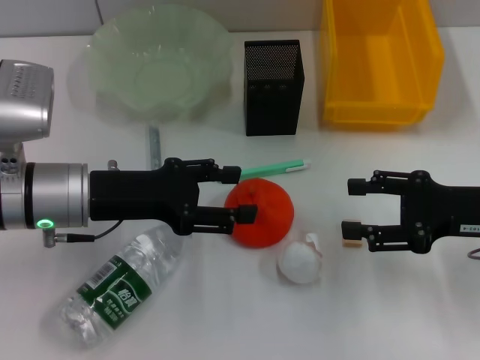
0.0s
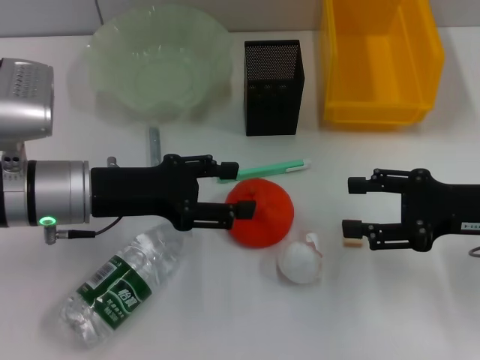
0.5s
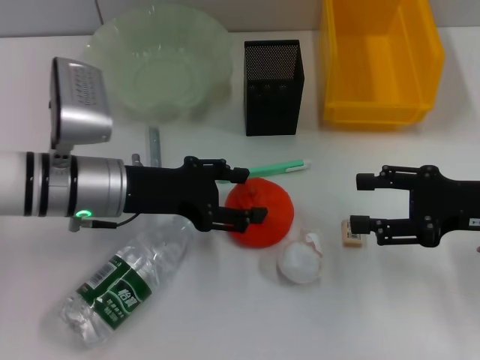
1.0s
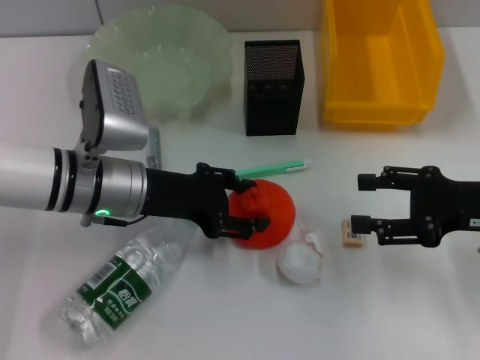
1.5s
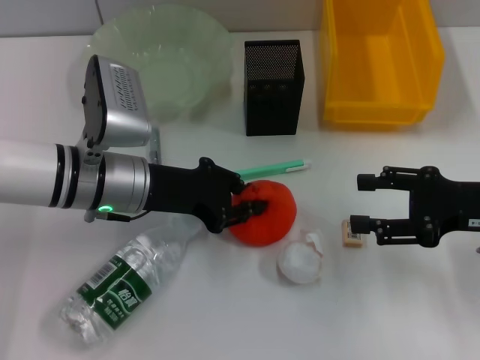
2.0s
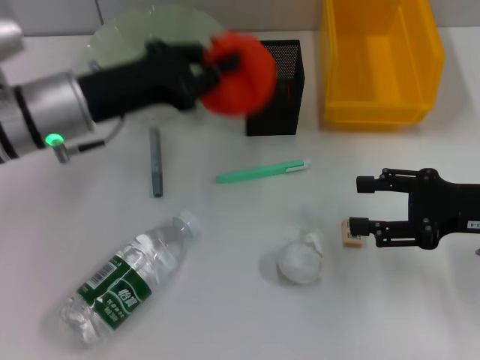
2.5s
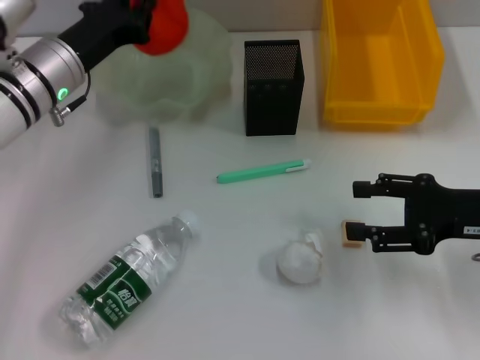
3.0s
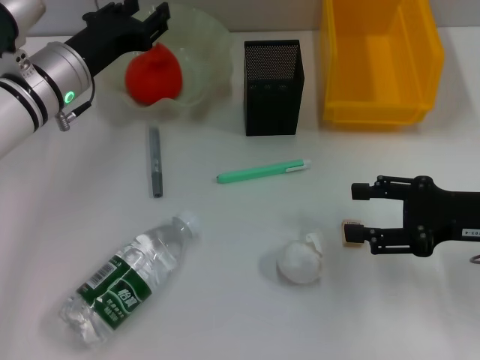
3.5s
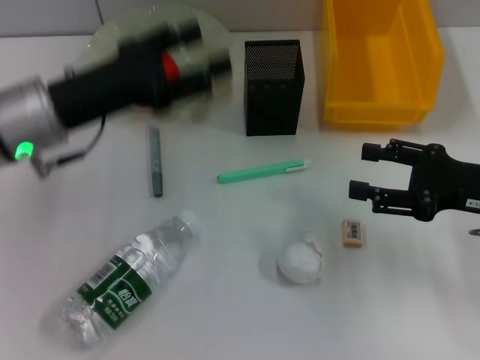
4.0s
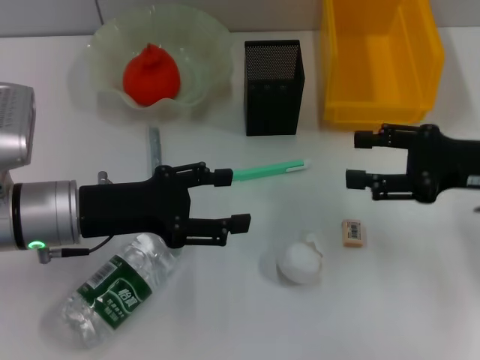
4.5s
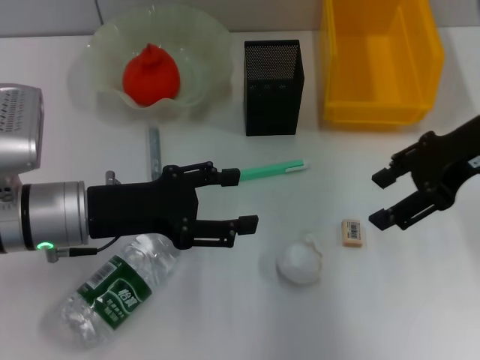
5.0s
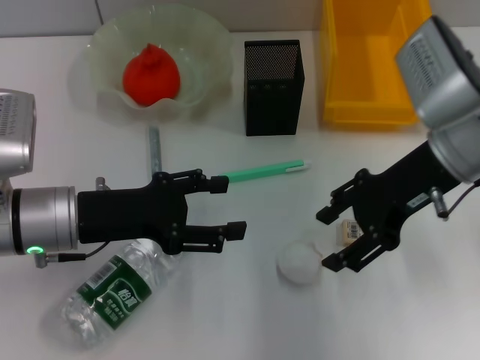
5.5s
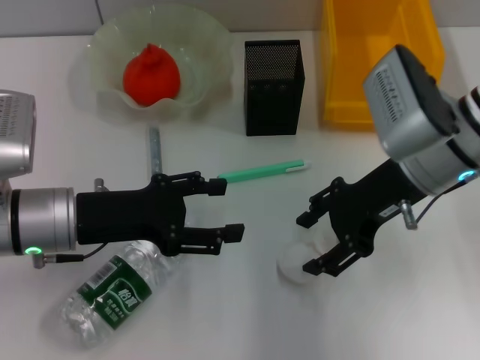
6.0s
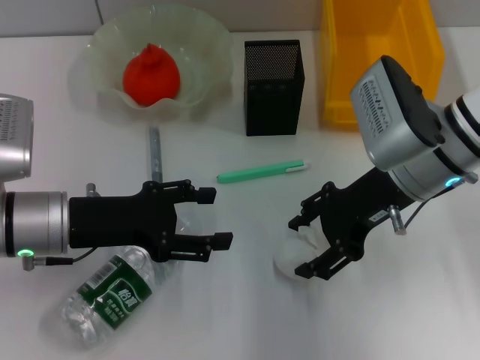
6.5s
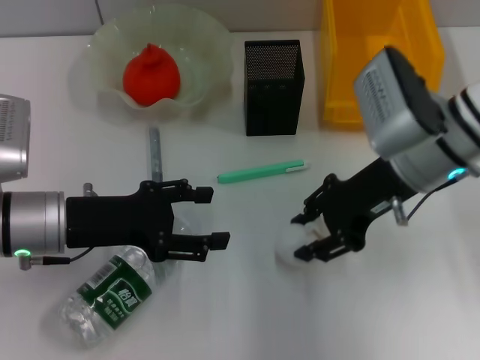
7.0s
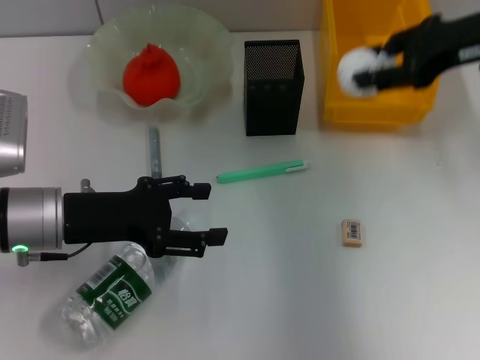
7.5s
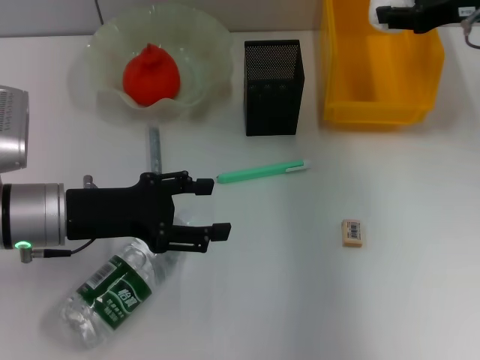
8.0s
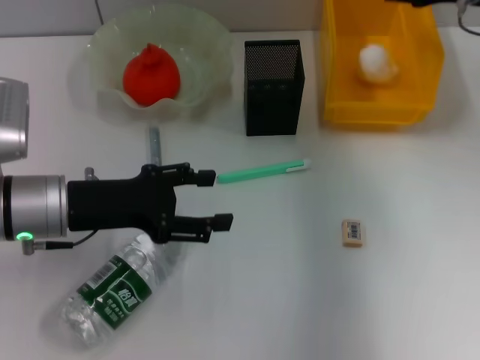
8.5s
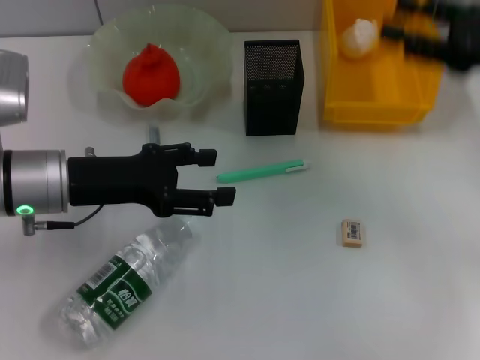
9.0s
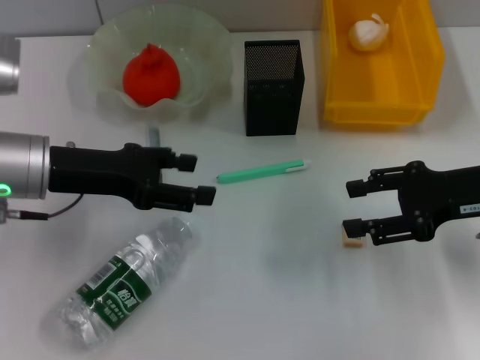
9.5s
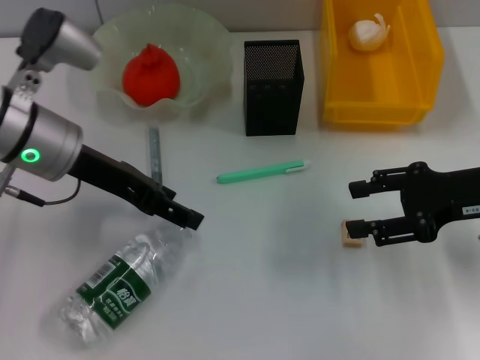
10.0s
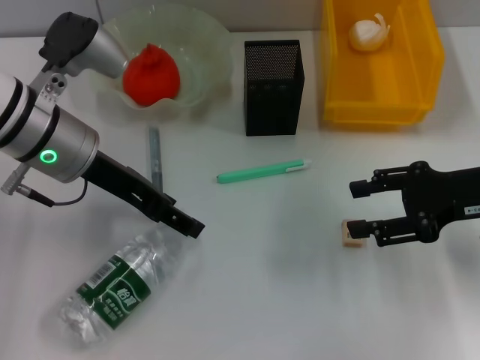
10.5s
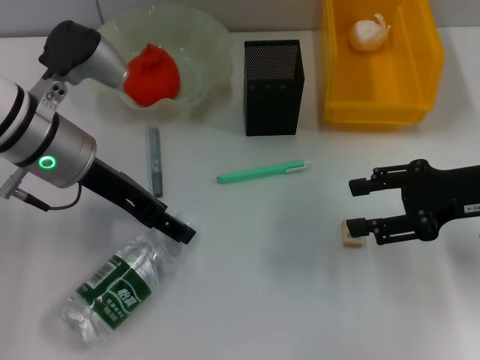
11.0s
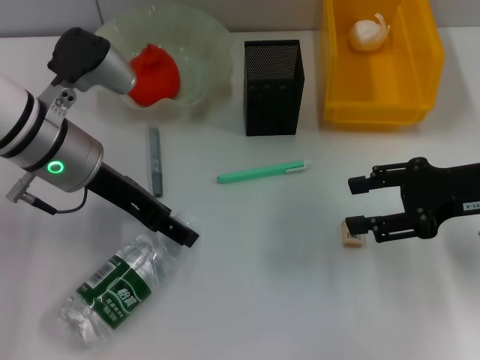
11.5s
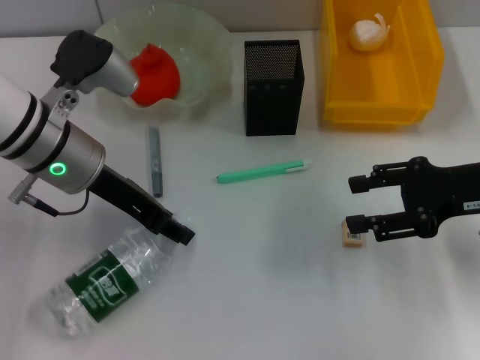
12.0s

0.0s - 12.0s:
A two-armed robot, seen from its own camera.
Step, 0.0s - 1.5s: Grab the orange with the left hand.
Step, 2.0s - 3.0s: Place the orange into the fruit bowl with the left hand.
Step, 4.0s - 6.5s: Grab the paper ball with the right hand.
Step, 7.0s - 8.0s: Place the paper ball into the trash can with the right hand.
0.0s - 2.0s: The left gripper ends up some 5 cm from where it was, and closes.
2.0s - 4.0s: The left gripper moves to the left and upward, about 10 cm, and opens up.
4.0s - 6.0s: The right gripper heads to the left and forward, covering approximately 15 cm. The left gripper travels downward and backward by some 5 cm.
6.0s - 8.0s: The right gripper moves to the right, forward and upward, some 15 cm, and closes up.
8.0s - 10.0s: The right gripper goes some 15 cm backward and downward, and opens up. Meanwhile the left gripper moves upward and forward, approximately 10 cm.
10.0s - 12.0s: There are only small adjustments of the grippers.

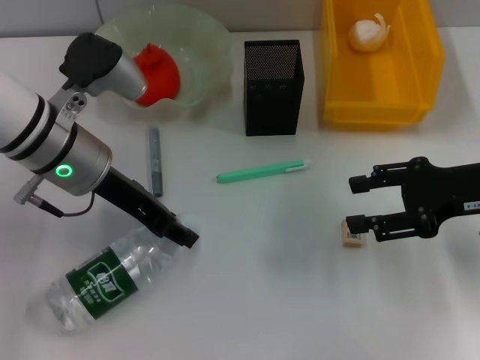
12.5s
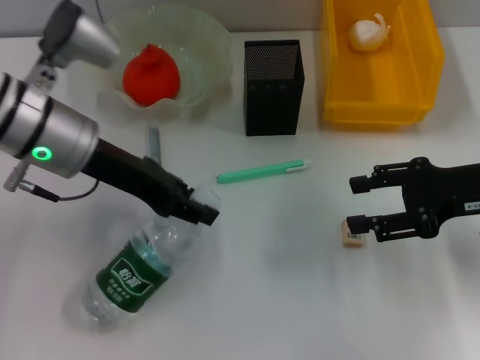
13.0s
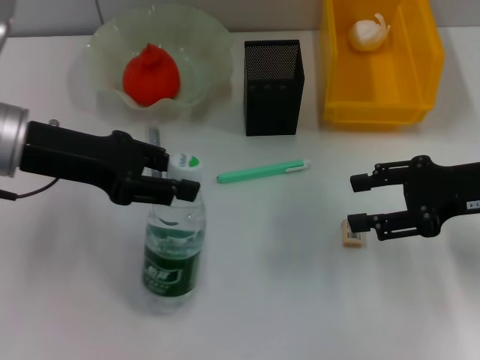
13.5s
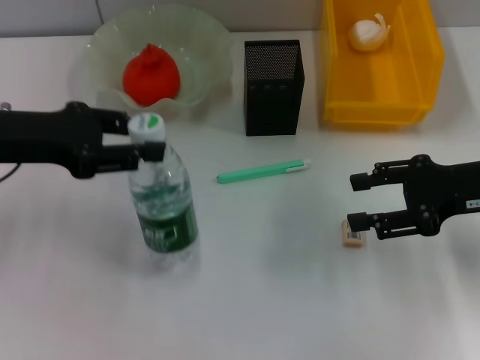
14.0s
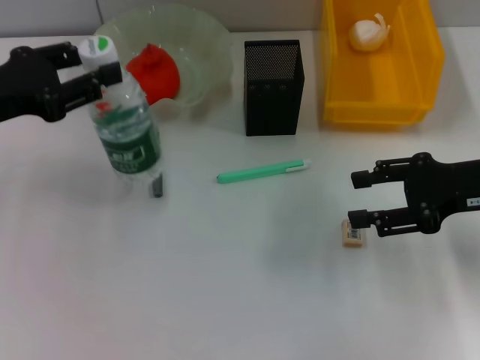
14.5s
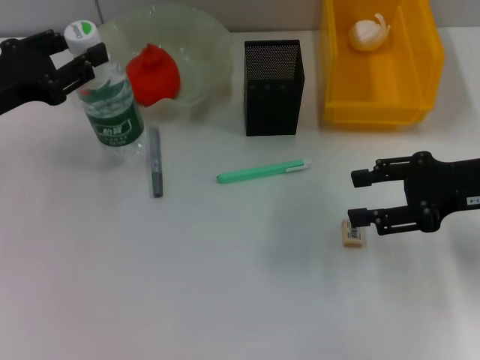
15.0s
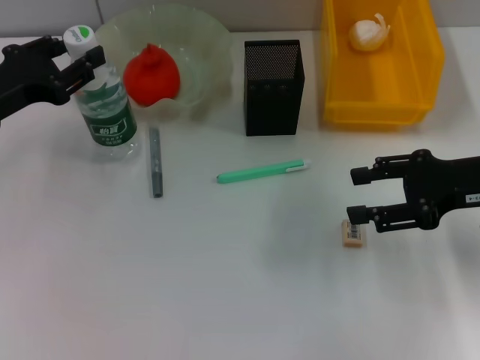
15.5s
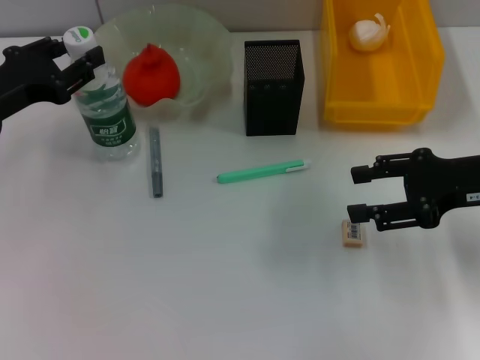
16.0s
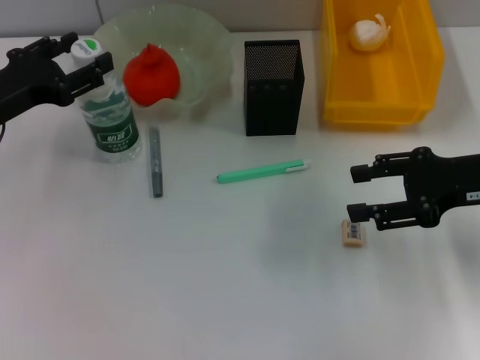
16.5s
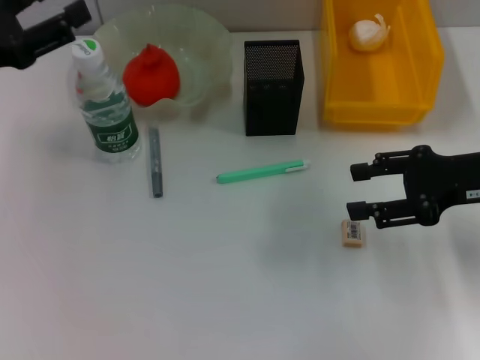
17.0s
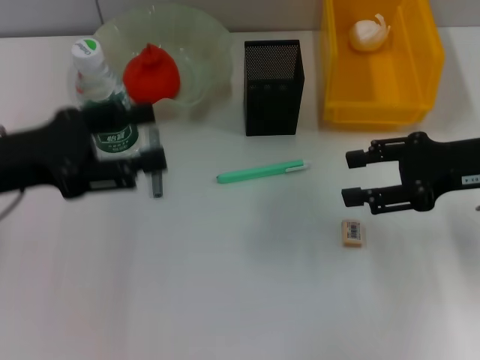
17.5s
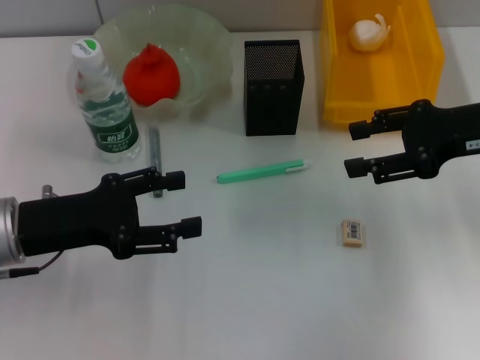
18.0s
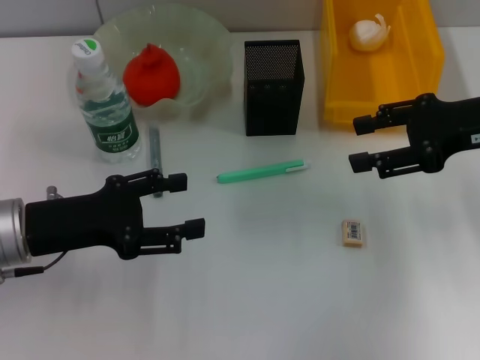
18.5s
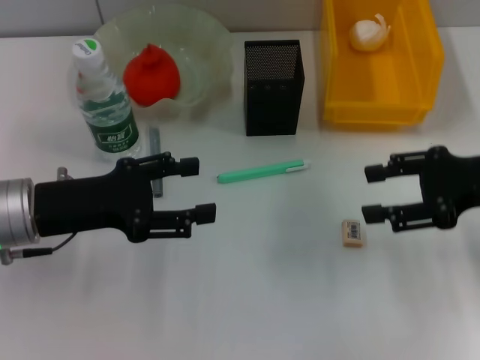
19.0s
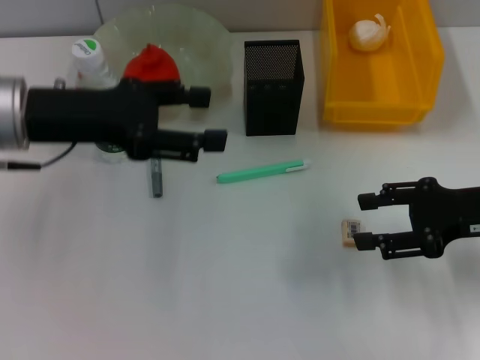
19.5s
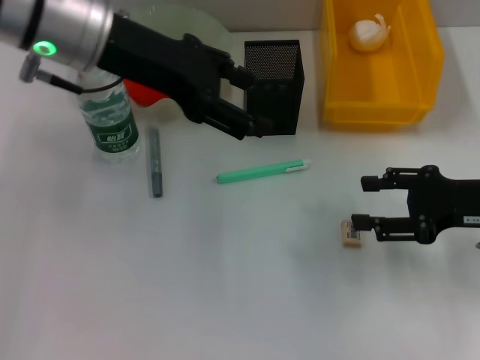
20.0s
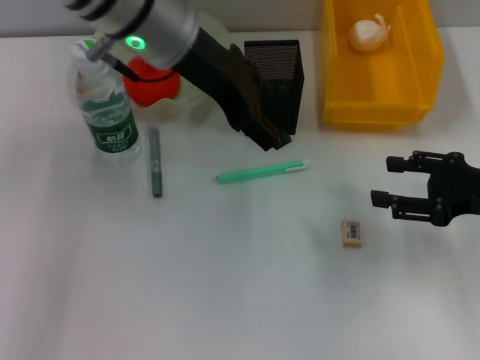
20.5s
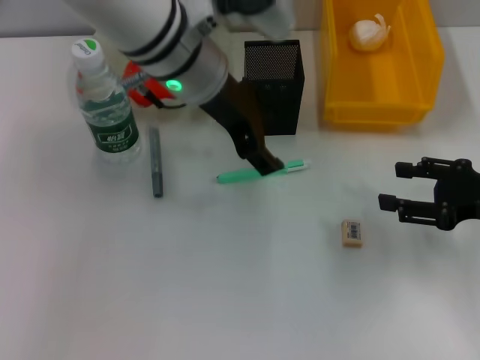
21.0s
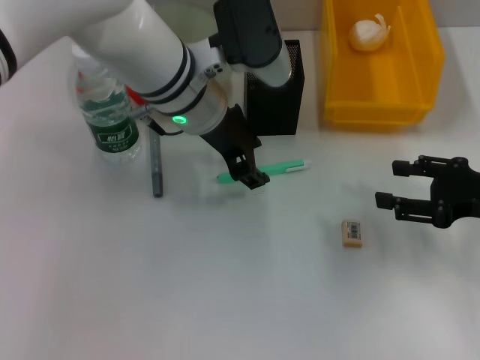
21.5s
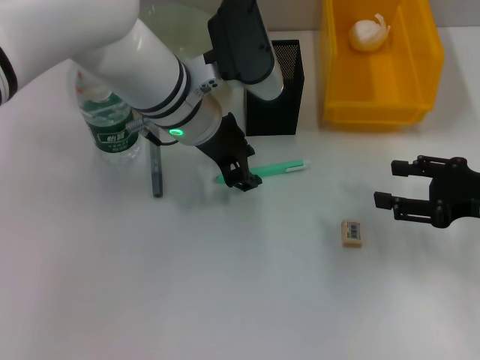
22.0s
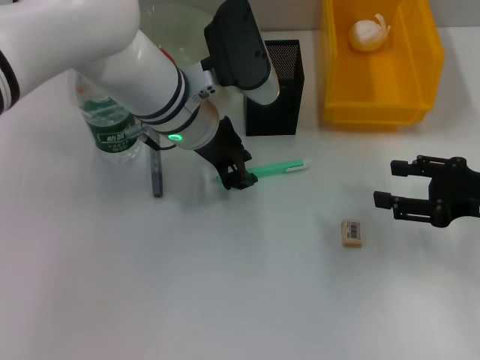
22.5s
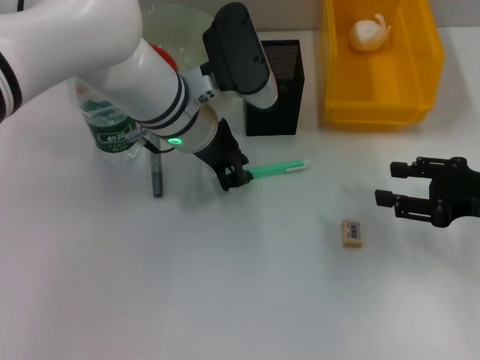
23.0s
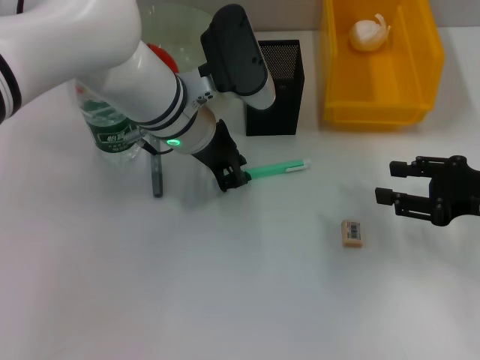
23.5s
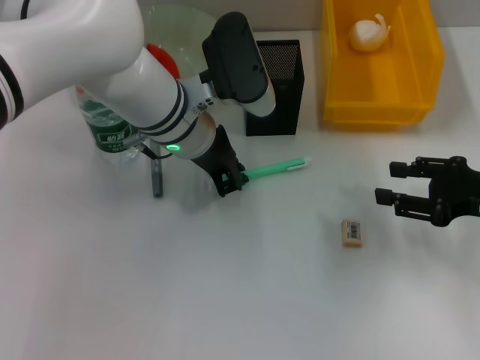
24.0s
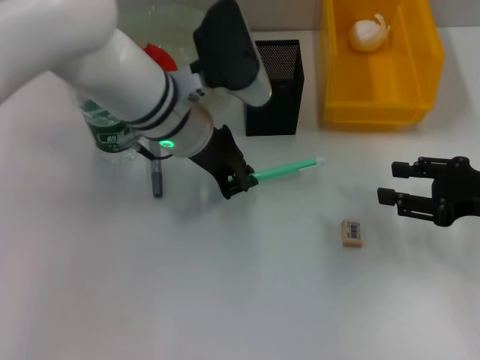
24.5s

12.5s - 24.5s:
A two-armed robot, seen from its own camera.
Step, 12.5s - 16.5s: Place the water bottle on the table with the left hand.
Step, 17.0s - 24.0s: Grab the blue utility knife with the left hand.
12.5s - 14.5s: The left gripper goes roughly 10 cm to the left.
14.5s - 16.5s: The grippers move only a little.
16.5s - 18.5s: The right gripper ends up approximately 5 cm from where it was; the left gripper is displaced backward by roughly 5 cm.
18.5s - 20.5s: The left gripper shifts some 25 cm to the right, upward and forward; the right gripper moves downward and backward, some 10 cm.
20.5s - 22.5s: The left gripper shifts about 10 cm downward, and closes.
22.5s - 24.5s: The left gripper closes its fingers.

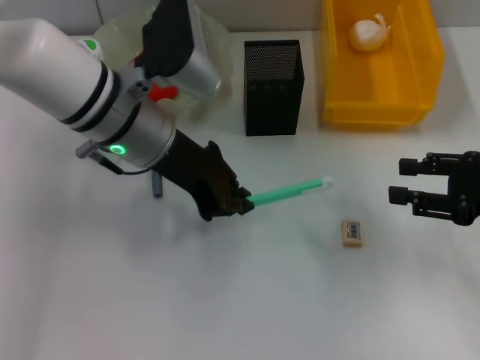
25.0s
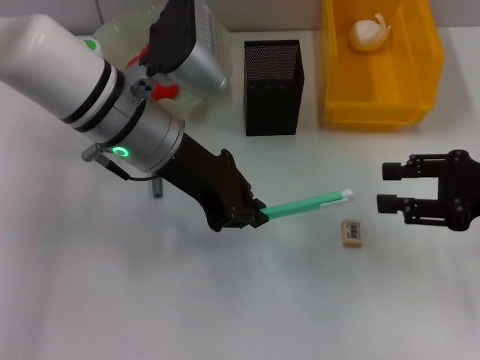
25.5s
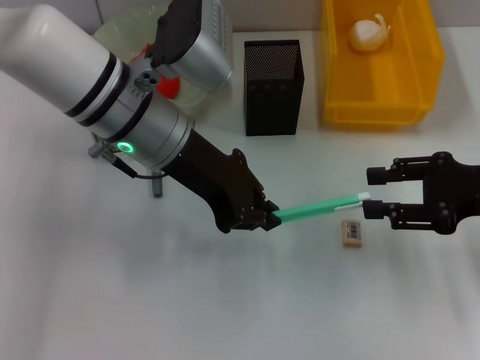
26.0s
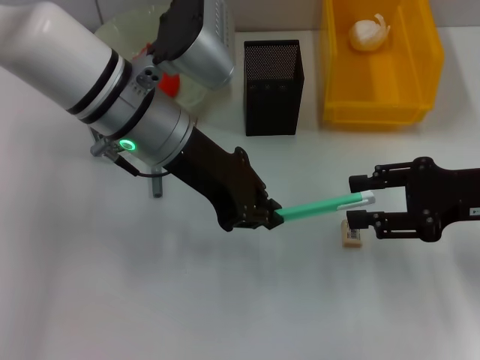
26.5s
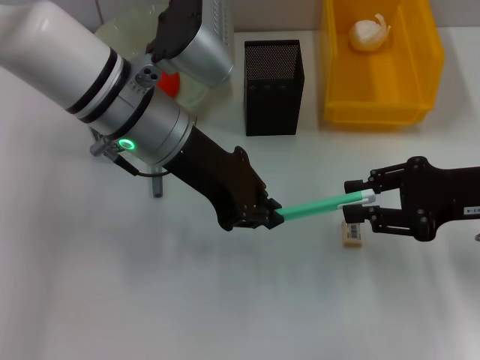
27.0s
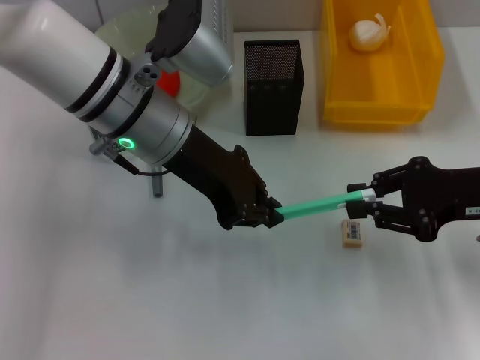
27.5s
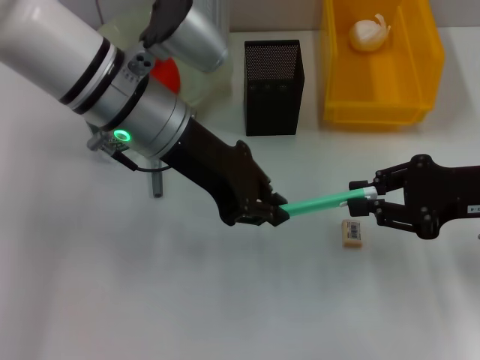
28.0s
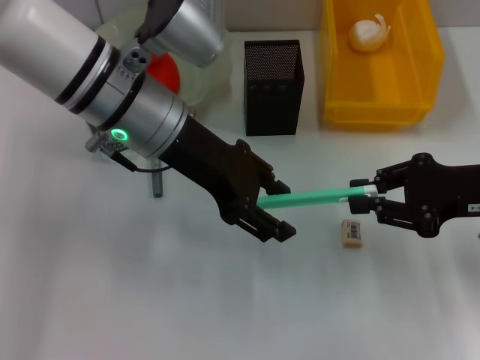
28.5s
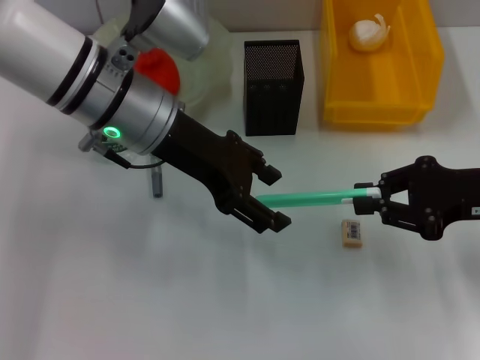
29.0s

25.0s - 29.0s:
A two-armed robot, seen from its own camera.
Step, 25.0s - 28.5s: Pass the blue utility knife from the left hand to the right hand.
25.0s - 27.0s: The right gripper shifts by some 5 cm.
27.0s - 29.0s: The right gripper closes, while the left gripper opens its fingers.
